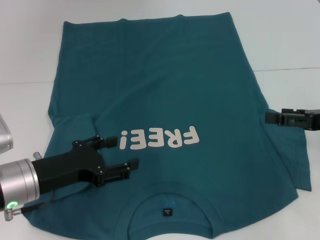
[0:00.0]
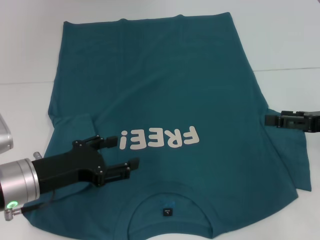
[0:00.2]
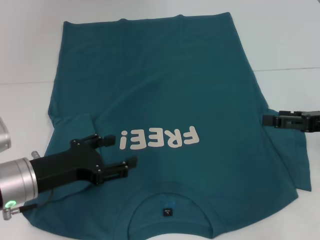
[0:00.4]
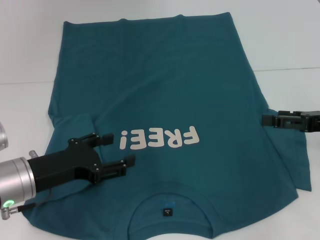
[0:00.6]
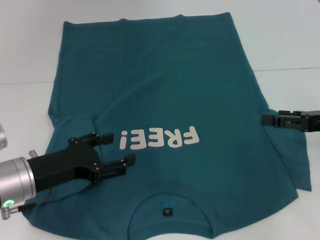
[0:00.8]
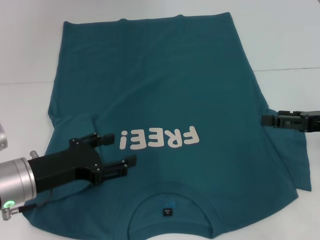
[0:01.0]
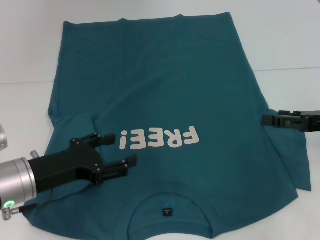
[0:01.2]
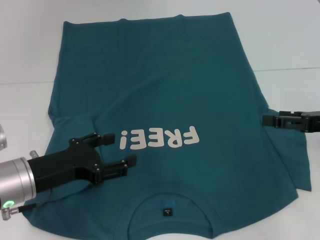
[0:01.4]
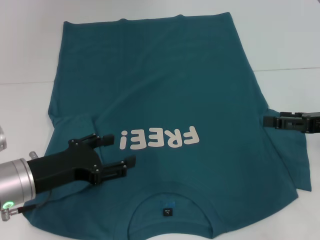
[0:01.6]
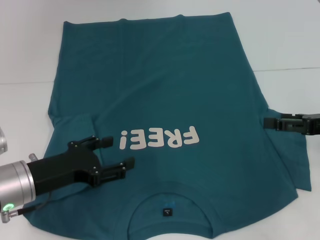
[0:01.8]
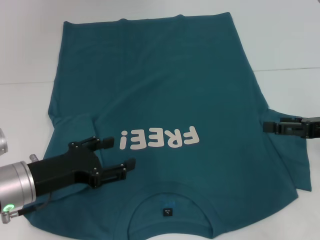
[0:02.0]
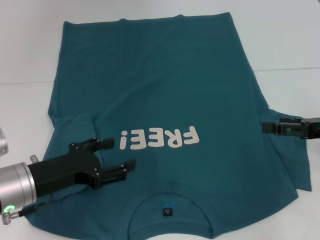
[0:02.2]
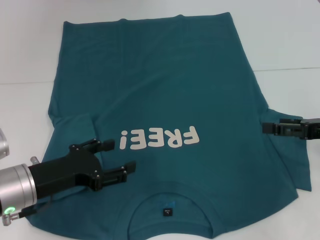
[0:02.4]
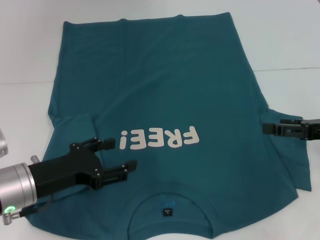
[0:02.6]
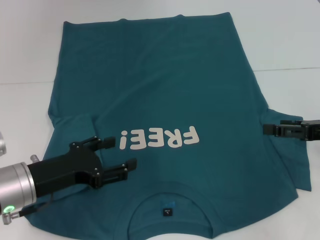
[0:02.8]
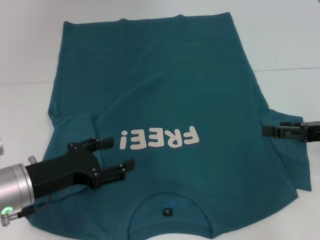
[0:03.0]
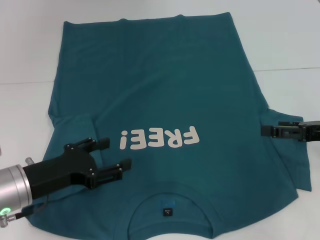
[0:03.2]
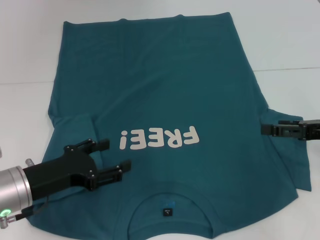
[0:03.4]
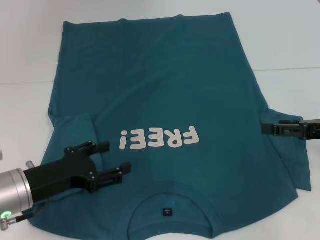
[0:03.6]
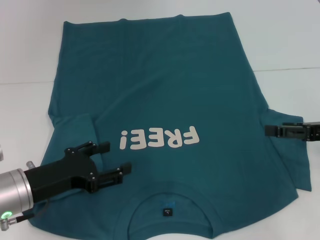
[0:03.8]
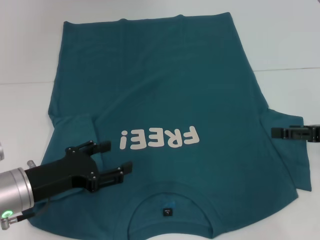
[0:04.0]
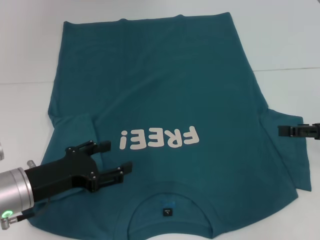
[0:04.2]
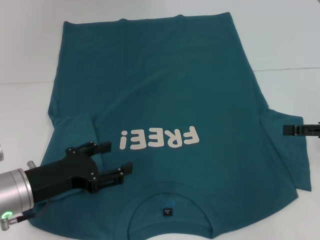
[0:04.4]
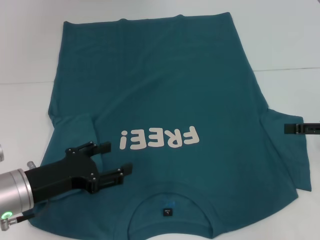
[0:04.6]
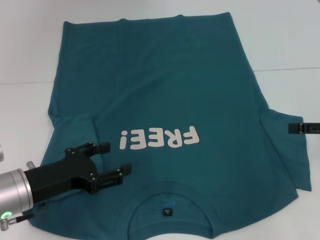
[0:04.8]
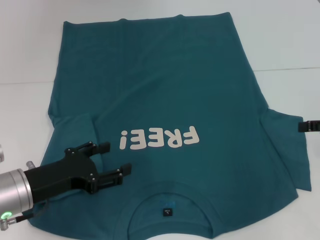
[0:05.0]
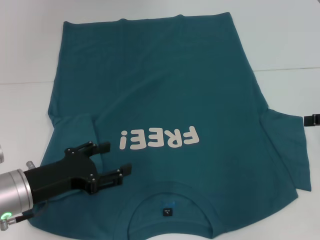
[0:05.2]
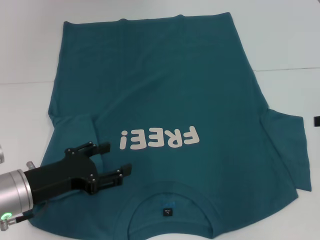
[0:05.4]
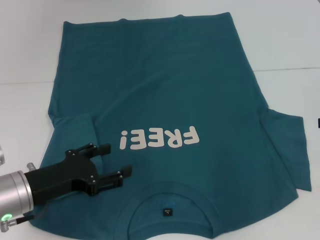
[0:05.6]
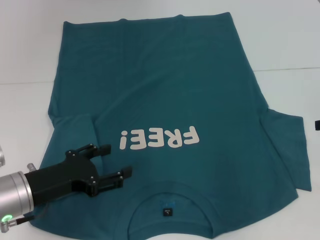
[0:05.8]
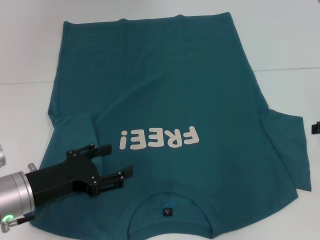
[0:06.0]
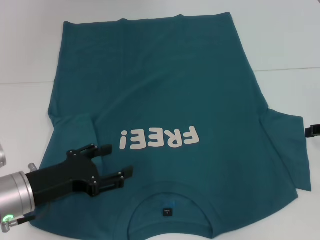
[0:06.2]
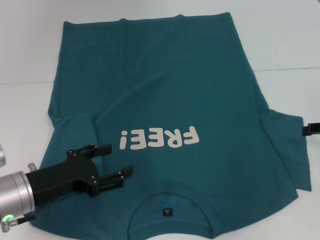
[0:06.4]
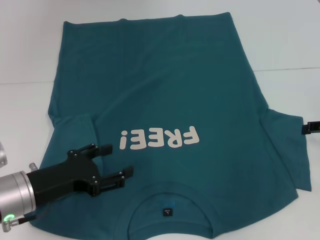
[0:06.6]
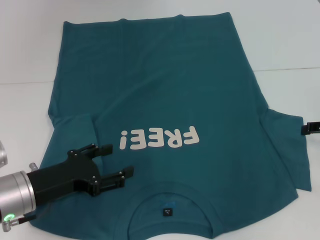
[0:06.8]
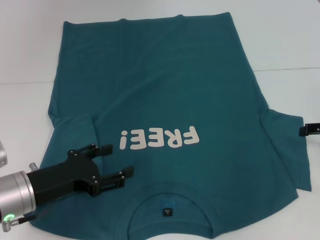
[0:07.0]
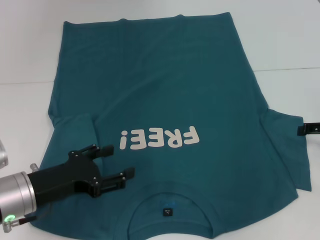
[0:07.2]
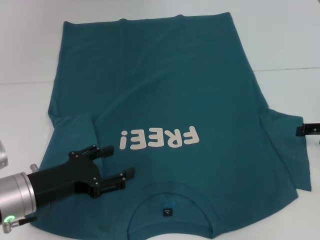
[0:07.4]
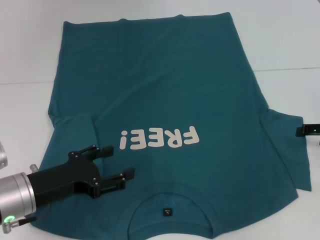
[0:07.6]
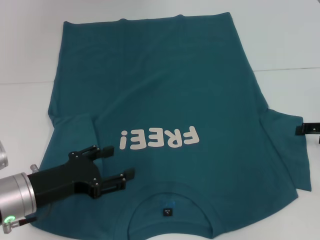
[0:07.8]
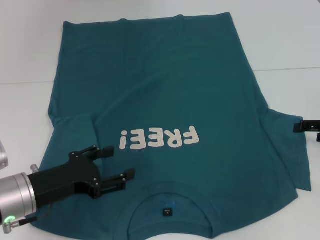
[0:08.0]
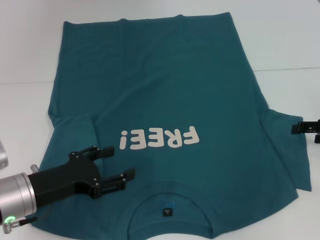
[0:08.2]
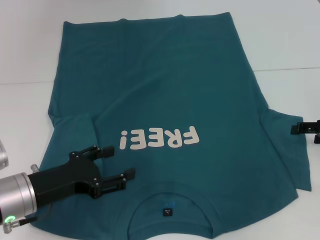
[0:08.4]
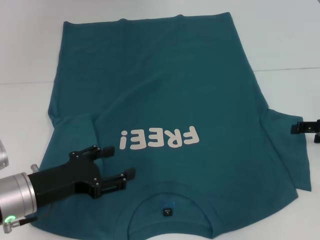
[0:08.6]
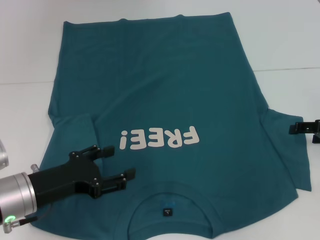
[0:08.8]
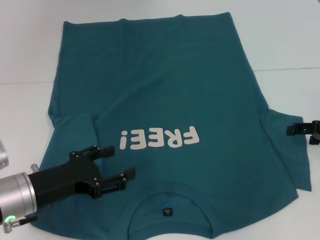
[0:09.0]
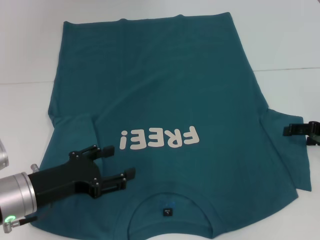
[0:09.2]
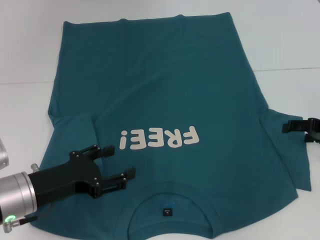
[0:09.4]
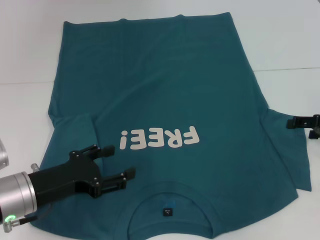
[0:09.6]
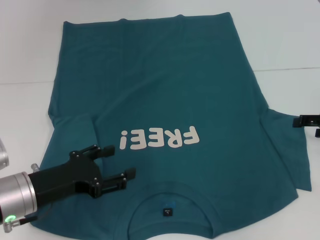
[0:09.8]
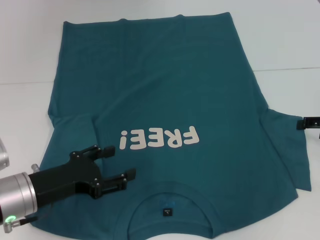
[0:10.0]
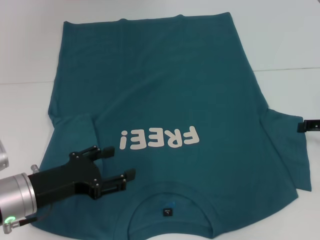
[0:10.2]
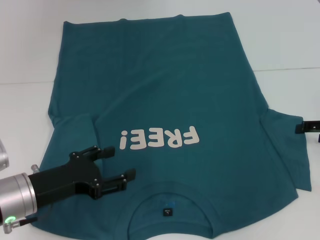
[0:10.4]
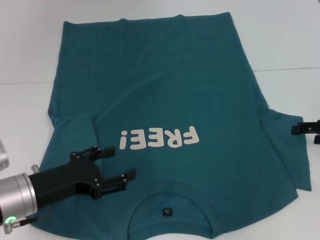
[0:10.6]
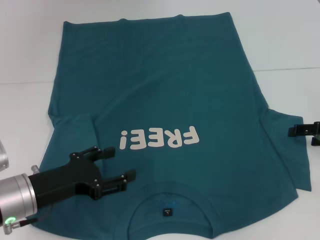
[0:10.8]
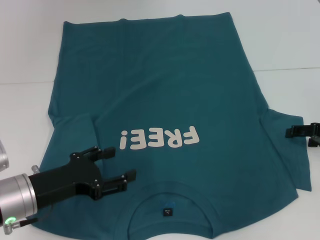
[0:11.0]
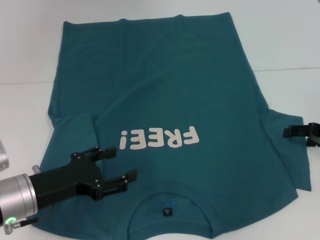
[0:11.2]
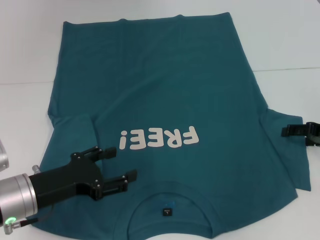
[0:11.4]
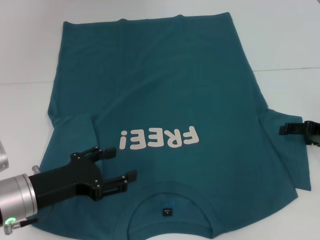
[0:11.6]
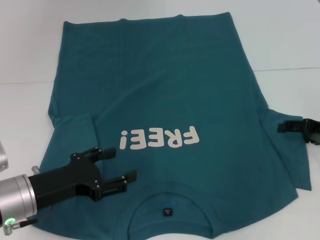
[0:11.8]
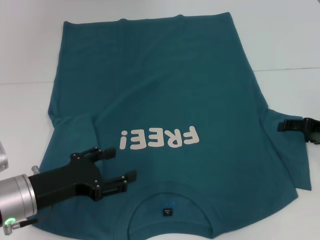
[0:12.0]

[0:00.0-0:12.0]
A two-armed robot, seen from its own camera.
0:00.0 to 0:03.0: Both grippers stay put.
0:03.0 to 0:04.4: The grippers make only small movements.
0:06.0 to 0:07.6: The grippers move only a little.
0:10.4 to 0:12.0: The grippers move only a little.

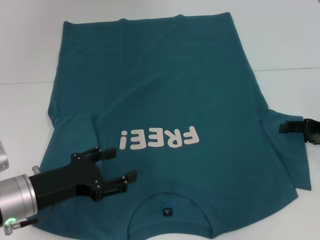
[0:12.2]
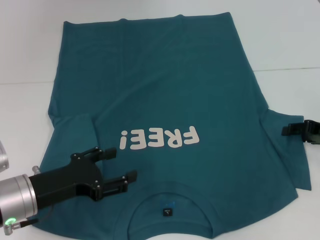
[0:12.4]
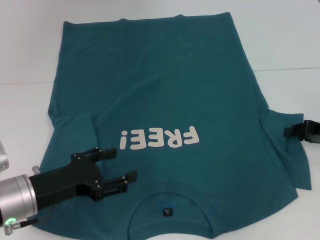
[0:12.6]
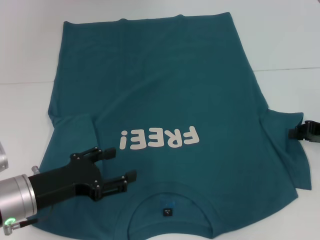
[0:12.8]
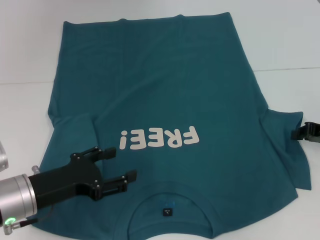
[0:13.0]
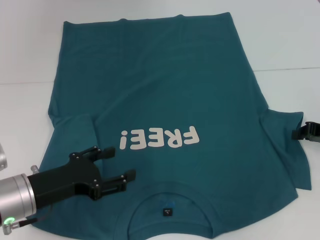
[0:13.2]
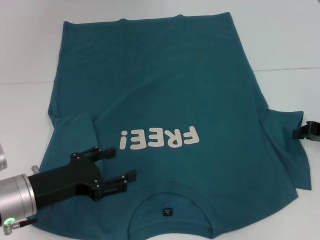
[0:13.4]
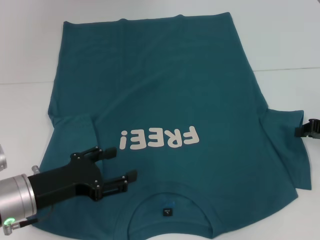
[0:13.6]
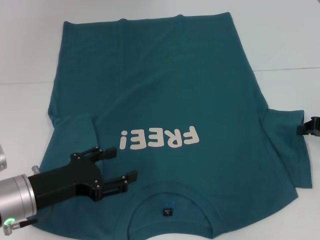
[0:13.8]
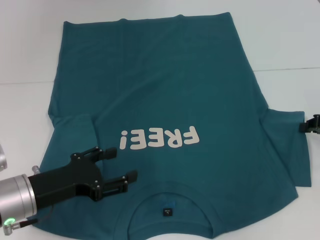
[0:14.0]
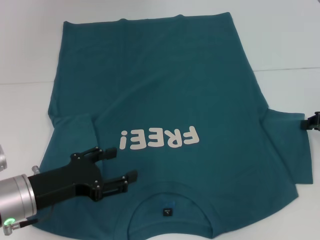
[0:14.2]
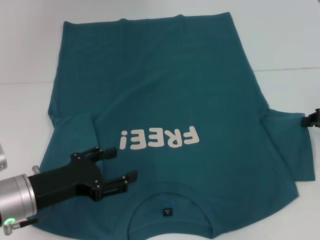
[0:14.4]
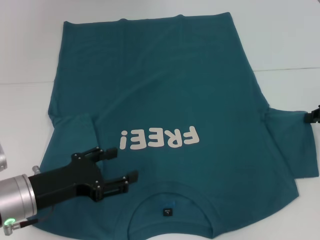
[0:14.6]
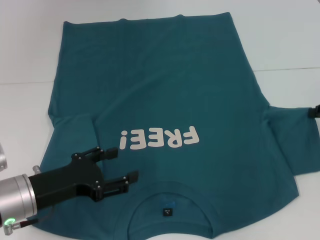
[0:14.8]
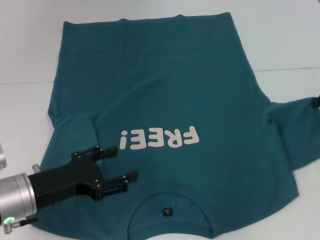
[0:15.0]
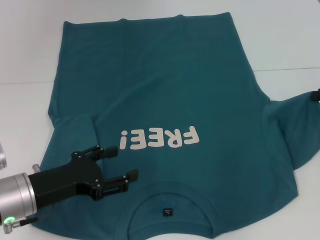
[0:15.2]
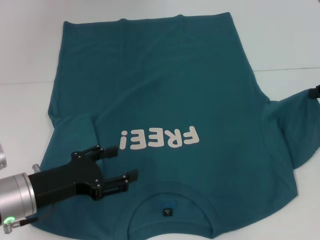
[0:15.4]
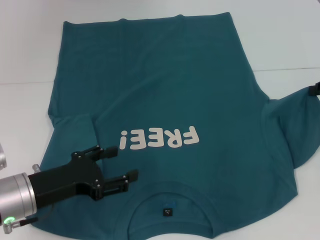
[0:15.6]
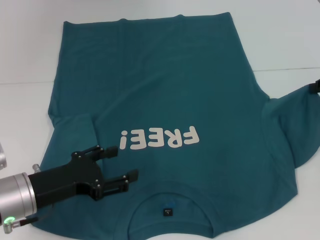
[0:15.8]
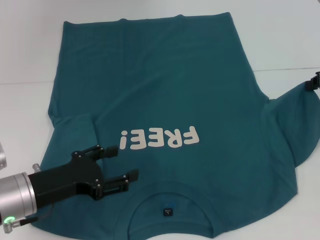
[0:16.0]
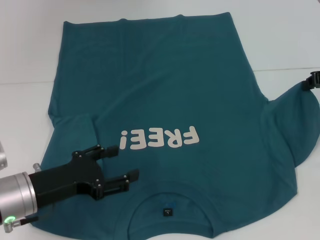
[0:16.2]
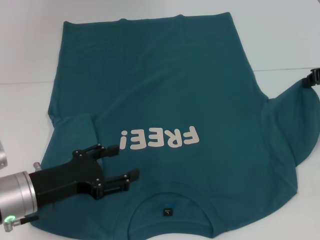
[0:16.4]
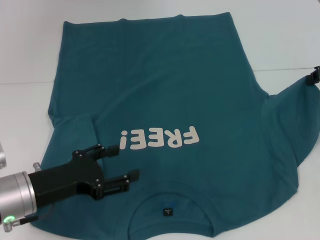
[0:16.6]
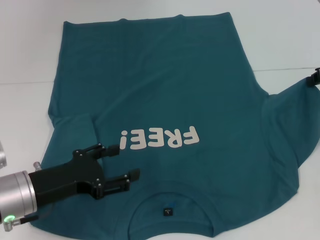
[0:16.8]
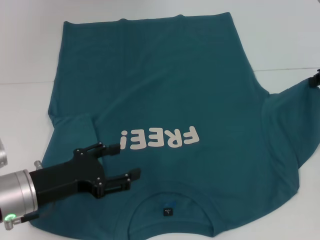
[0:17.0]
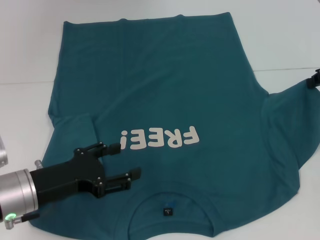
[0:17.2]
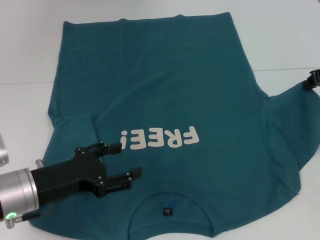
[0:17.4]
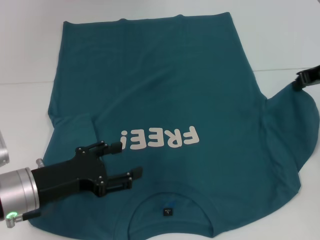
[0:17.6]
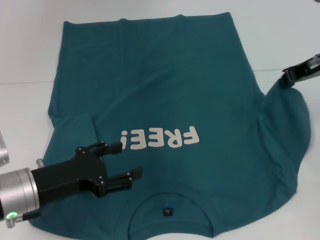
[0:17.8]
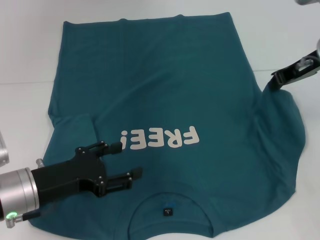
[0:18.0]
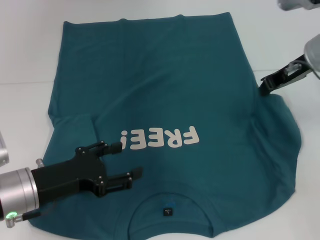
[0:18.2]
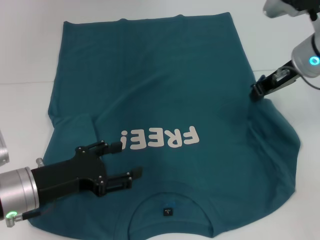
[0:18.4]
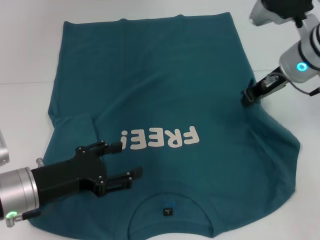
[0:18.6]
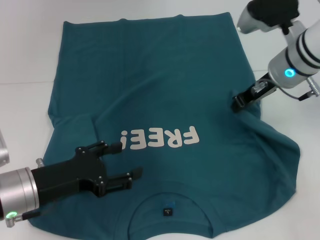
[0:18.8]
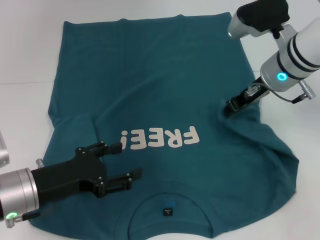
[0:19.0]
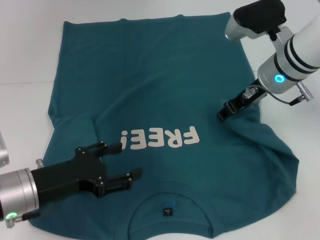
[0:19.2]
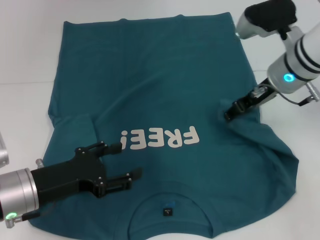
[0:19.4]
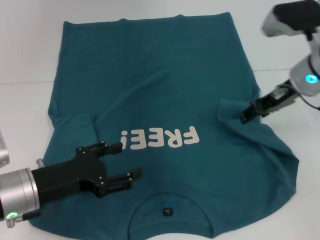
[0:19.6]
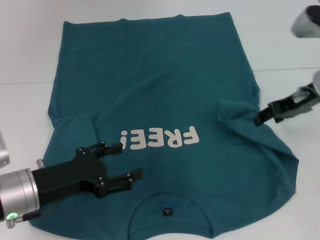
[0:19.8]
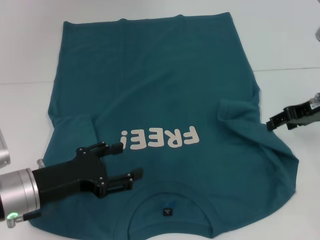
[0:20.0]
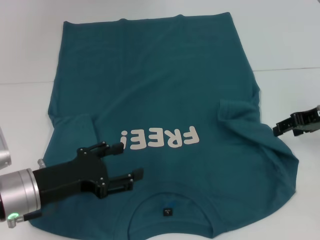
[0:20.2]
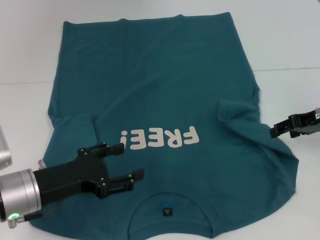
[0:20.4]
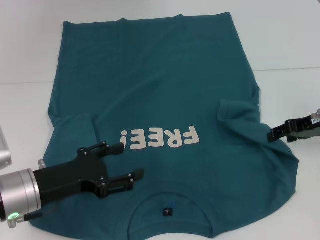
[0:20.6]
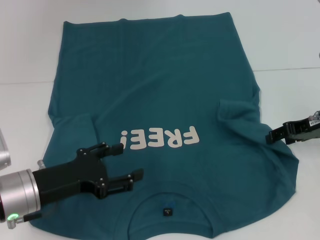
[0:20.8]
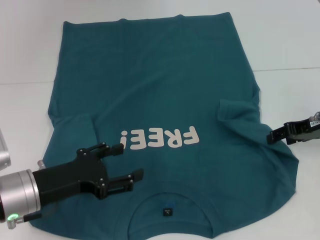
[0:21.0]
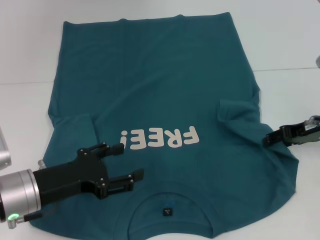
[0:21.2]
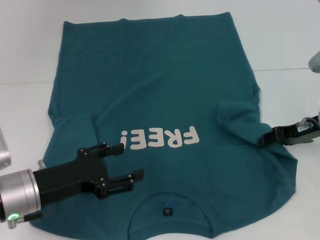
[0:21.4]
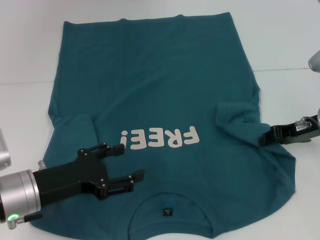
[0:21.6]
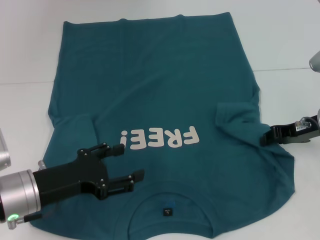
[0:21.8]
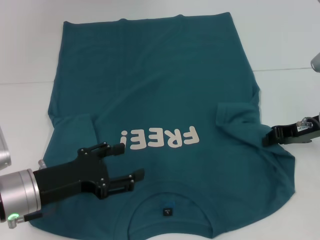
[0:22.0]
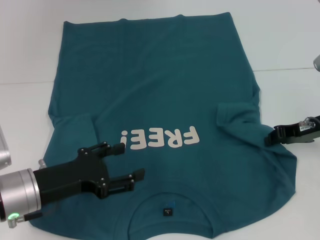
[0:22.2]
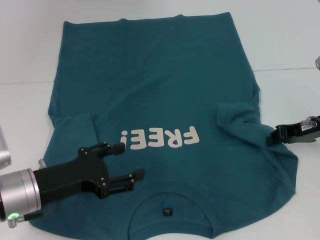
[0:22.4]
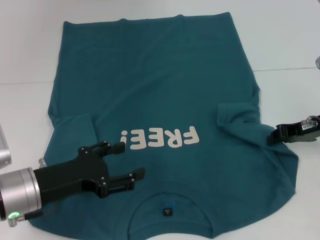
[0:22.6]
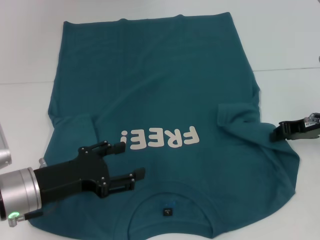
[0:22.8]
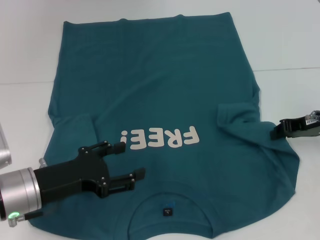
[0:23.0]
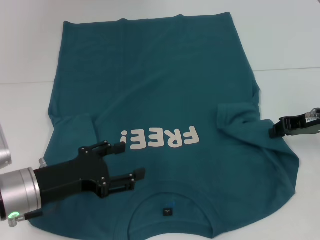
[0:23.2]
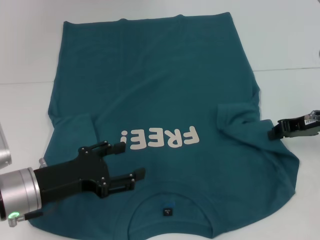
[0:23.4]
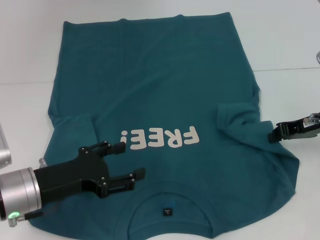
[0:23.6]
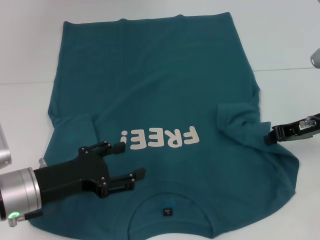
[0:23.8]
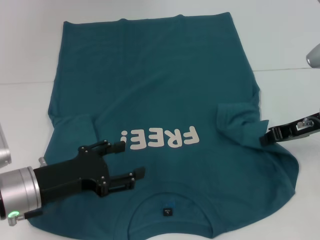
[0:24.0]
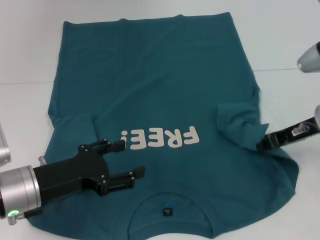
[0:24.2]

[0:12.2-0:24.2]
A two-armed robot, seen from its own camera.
0:12.2 to 0:13.8: The right gripper closes its fingers.
0:13.8 to 0:15.2: The right gripper heads upward, covering about 5 cm.
0:15.2 to 0:16.6: The right gripper shifts by about 5 cm.
0:16.6 to 0:18.2: The right gripper travels to the left by approximately 10 cm.
0:18.2 to 0:19.8: The right gripper goes to the left and returns, about 5 cm each way, and opens up.
0:19.8 to 0:21.2: The right gripper is displaced downward by approximately 5 cm.
0:21.2 to 0:22.6: The right gripper closes its fingers.
0:22.6 to 0:24.2: The grippers move only a little.
